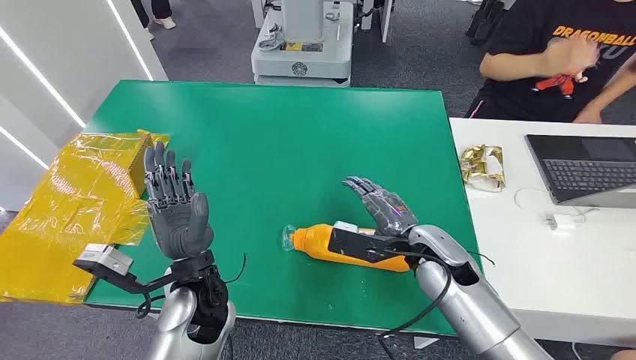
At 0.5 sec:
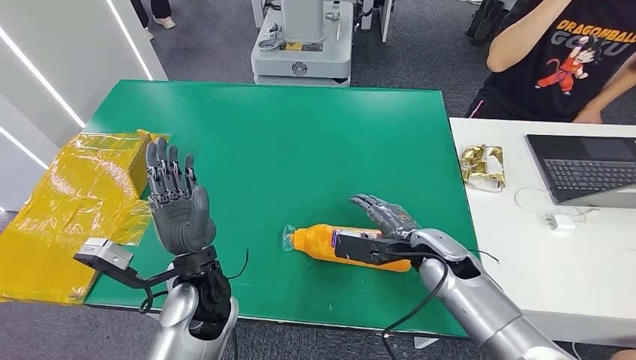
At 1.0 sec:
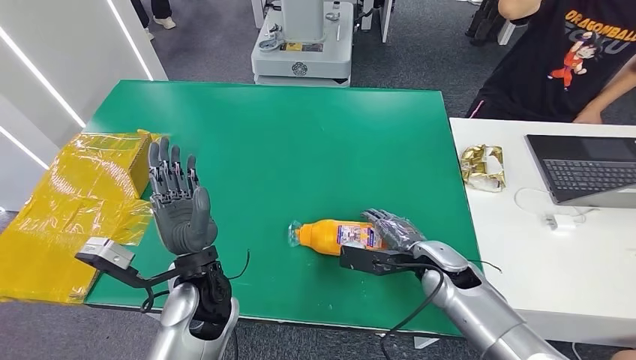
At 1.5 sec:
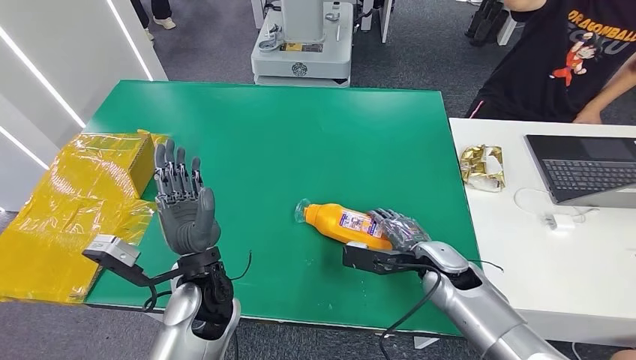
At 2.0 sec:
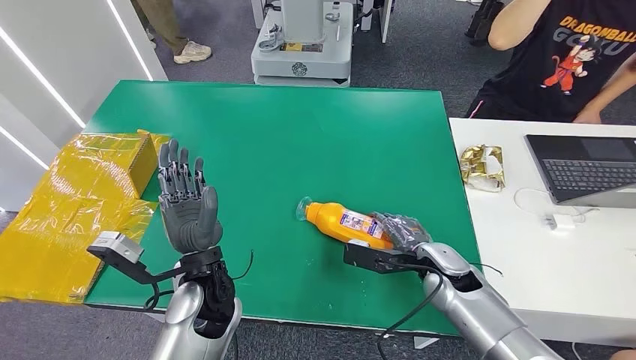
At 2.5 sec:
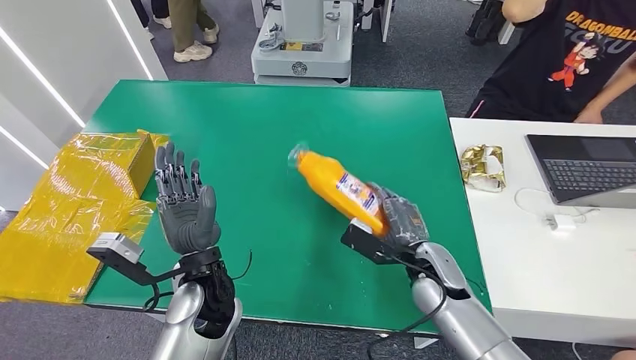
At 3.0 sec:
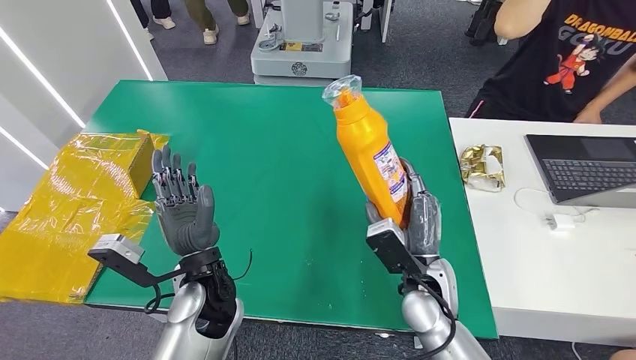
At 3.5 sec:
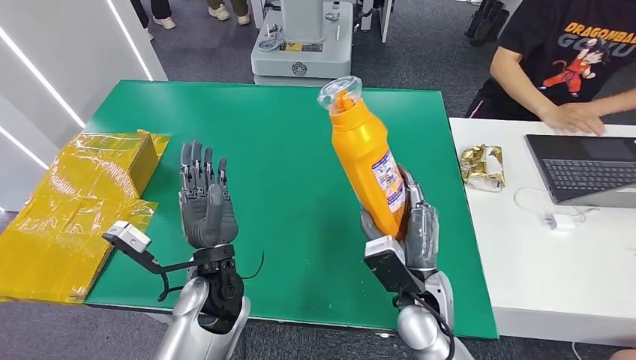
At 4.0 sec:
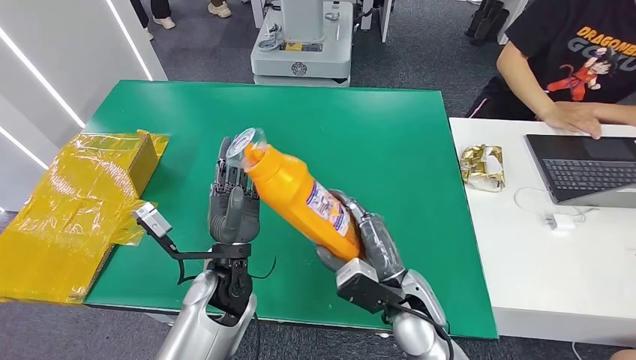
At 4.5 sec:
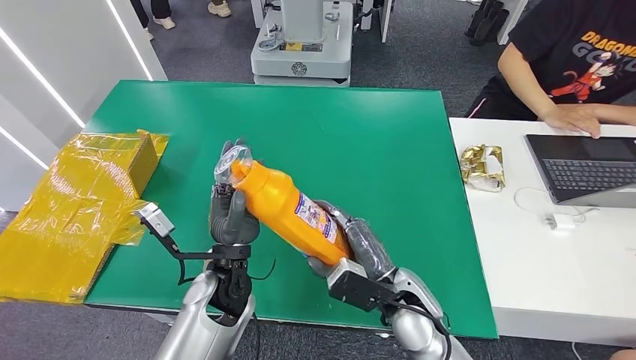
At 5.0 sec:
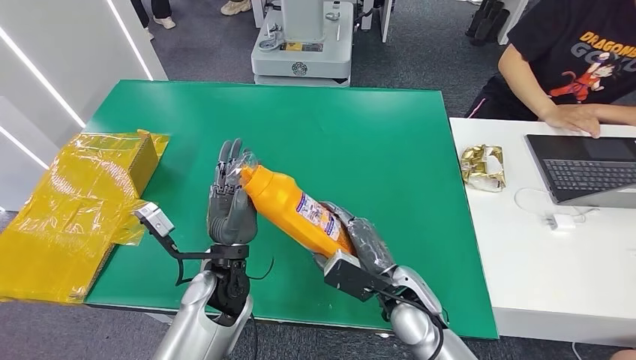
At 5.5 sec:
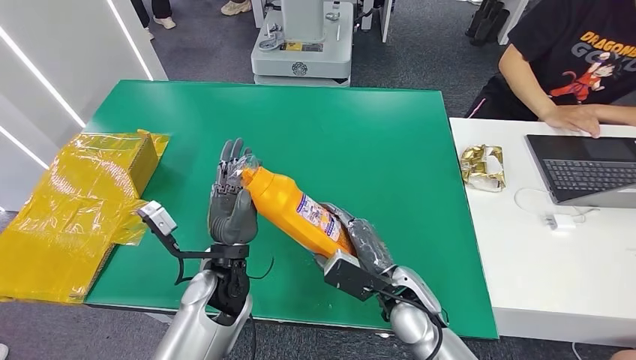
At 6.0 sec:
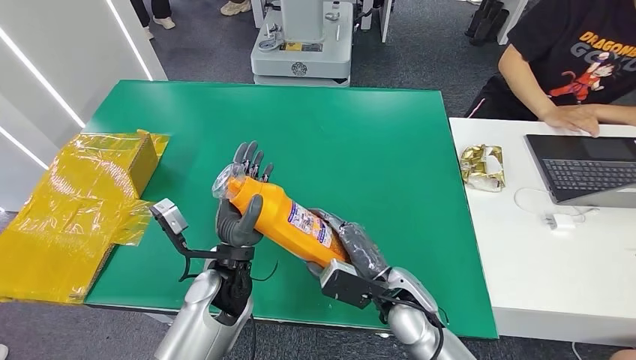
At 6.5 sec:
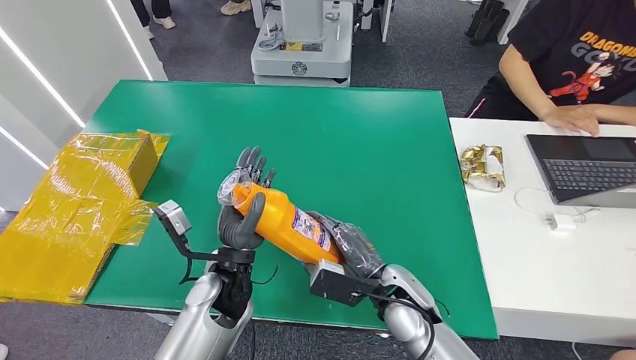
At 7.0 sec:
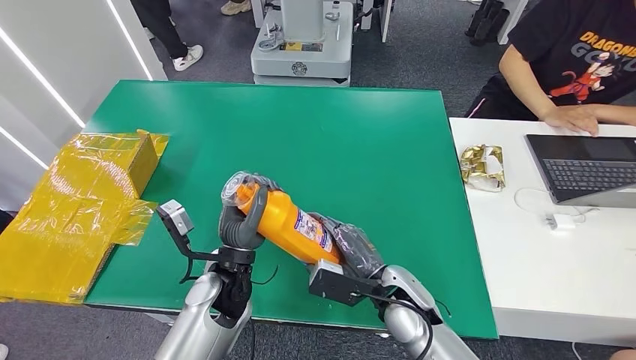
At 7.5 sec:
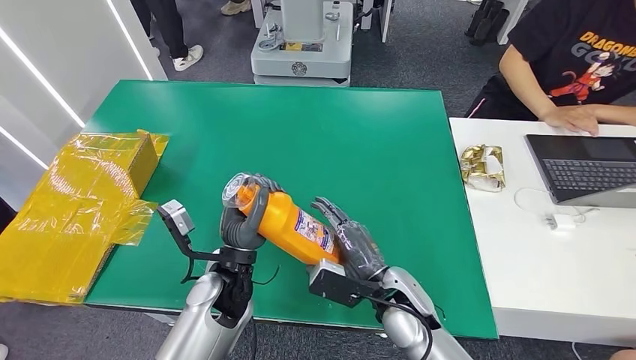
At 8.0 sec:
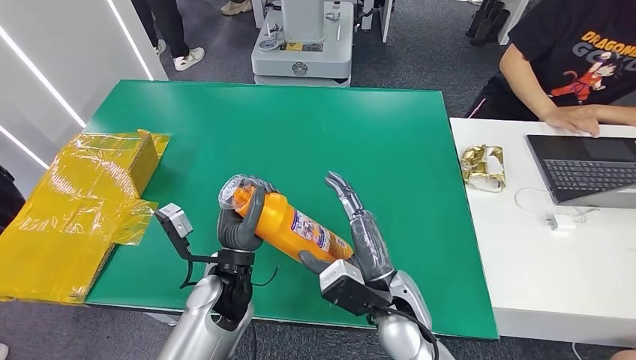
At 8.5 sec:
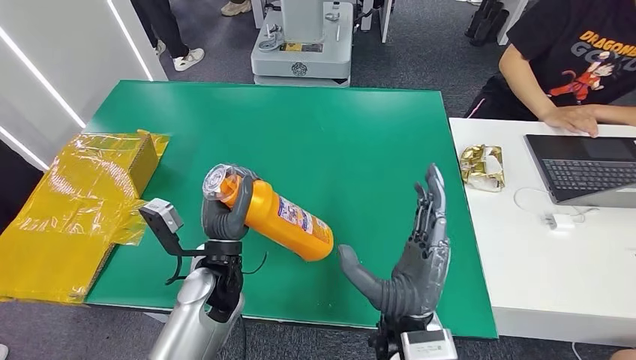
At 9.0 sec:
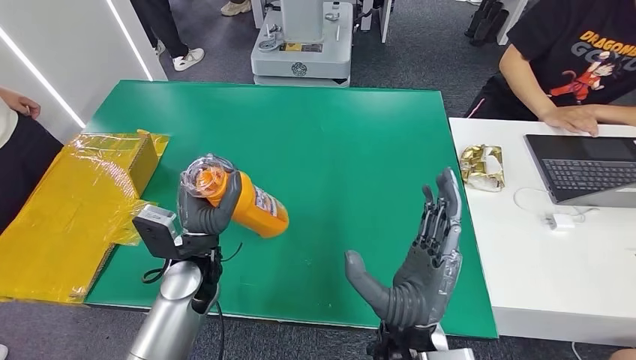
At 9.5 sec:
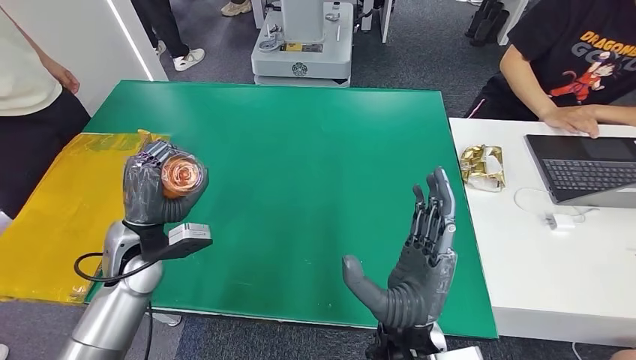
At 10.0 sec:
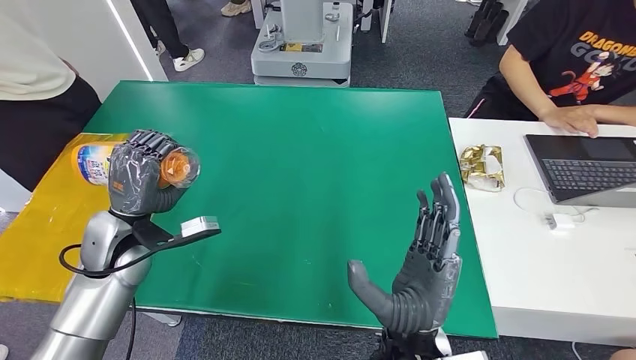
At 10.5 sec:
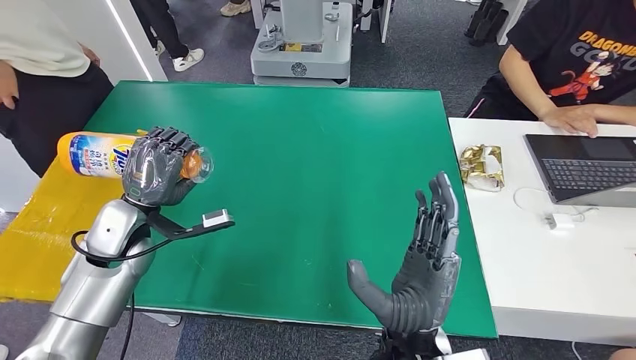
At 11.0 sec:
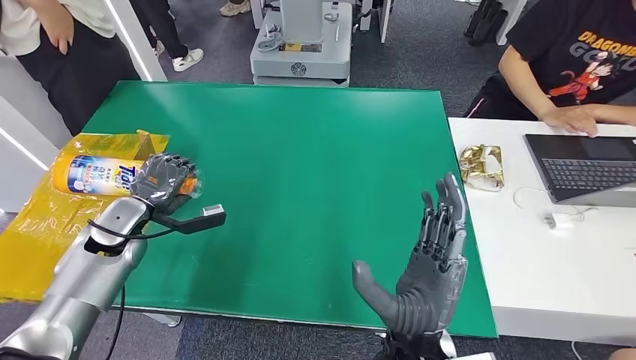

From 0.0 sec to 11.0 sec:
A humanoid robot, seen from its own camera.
Step, from 0.0 sec to 4.0 sec: Pick up the bottle from the table.
Step, from 4.5 sec to 10.5 sec: Turn the bottle to the front side.
From 5.5 sec to 7.5 sec: The hands move only a little.
From 7.5 sec to 9.0 sec: The right hand travels backward and upward by roughly 10 cm, while the left hand heads to the left, covering approximately 5 cm.
